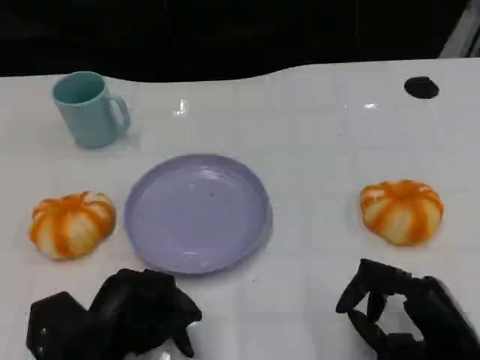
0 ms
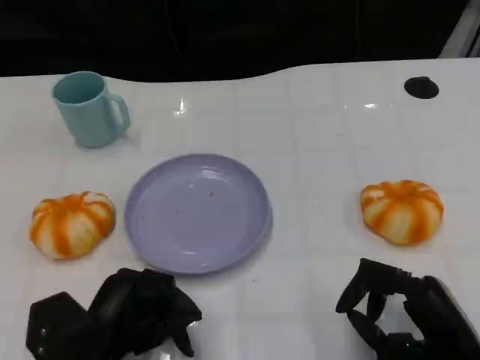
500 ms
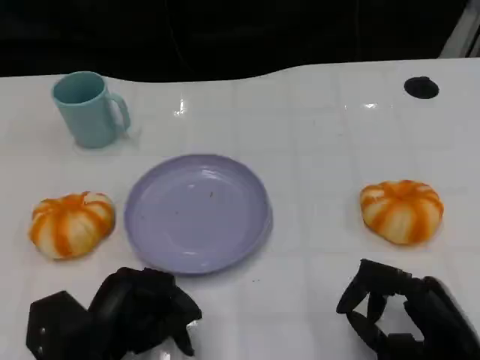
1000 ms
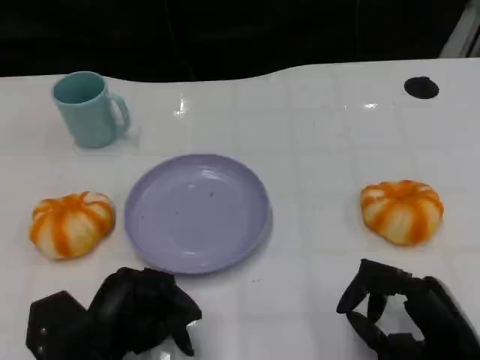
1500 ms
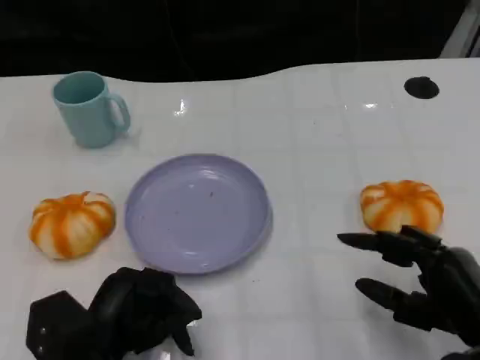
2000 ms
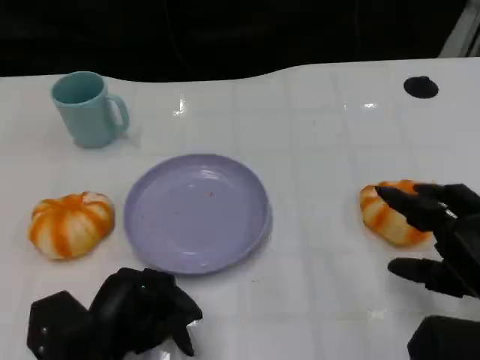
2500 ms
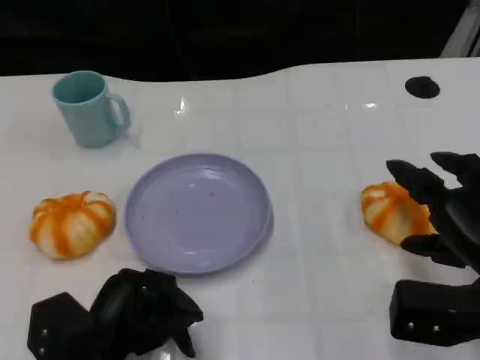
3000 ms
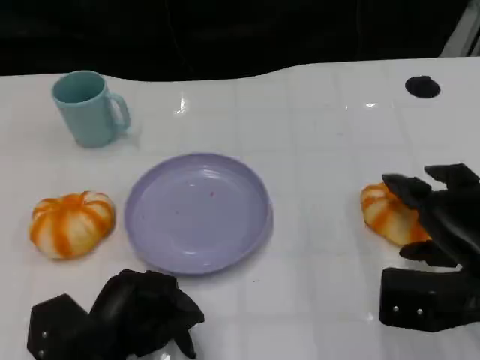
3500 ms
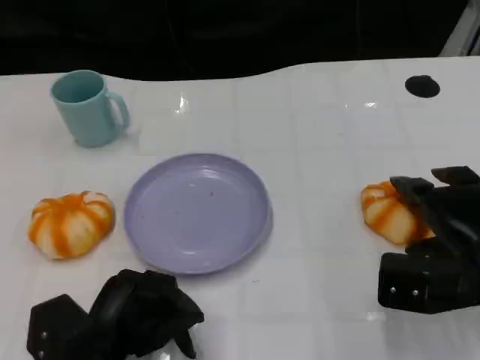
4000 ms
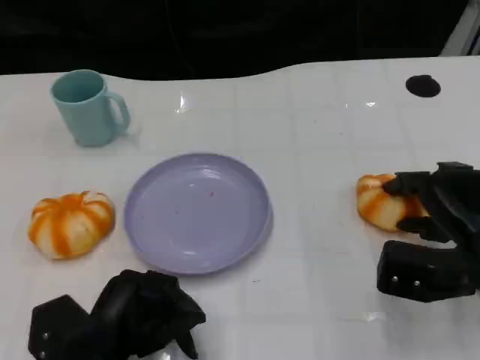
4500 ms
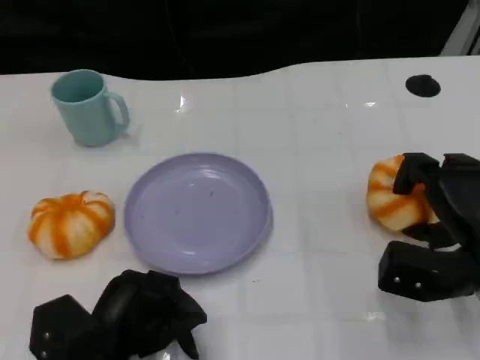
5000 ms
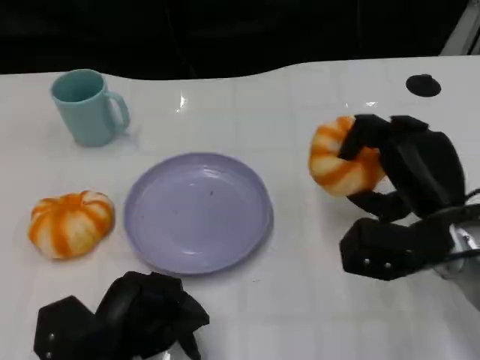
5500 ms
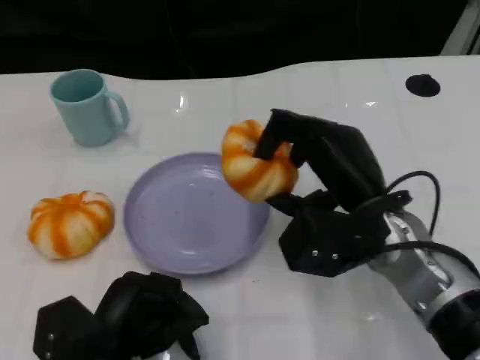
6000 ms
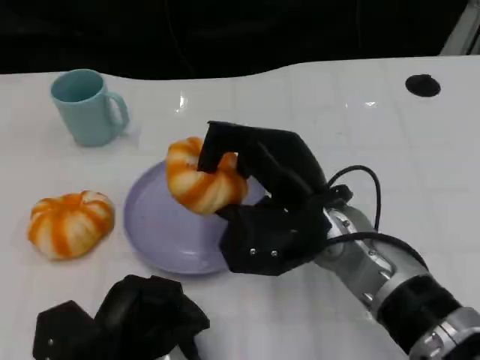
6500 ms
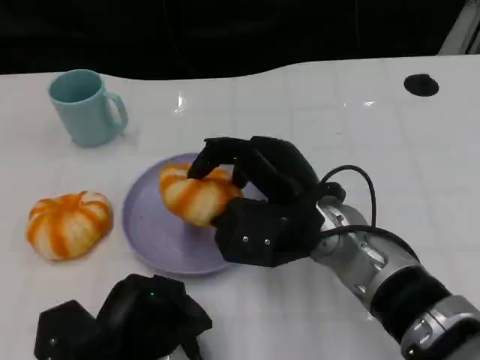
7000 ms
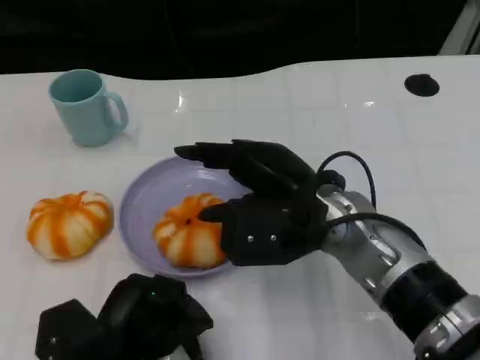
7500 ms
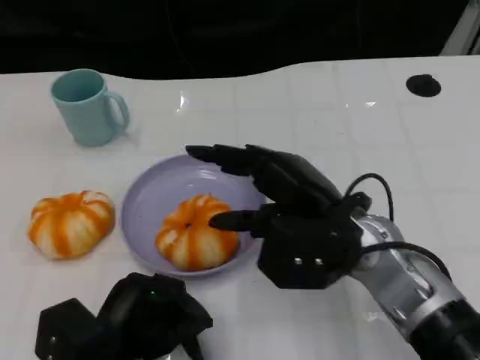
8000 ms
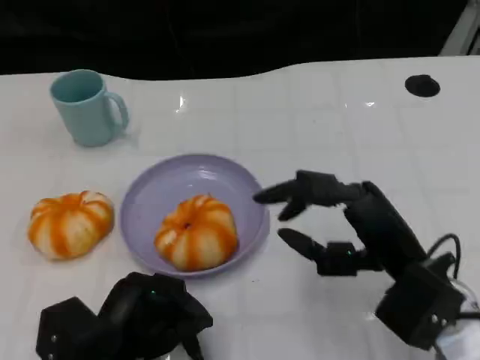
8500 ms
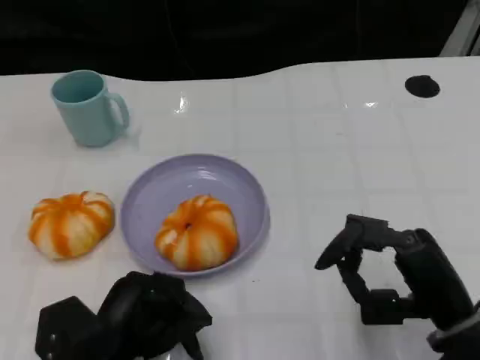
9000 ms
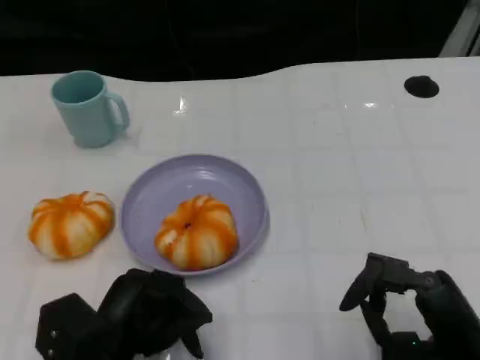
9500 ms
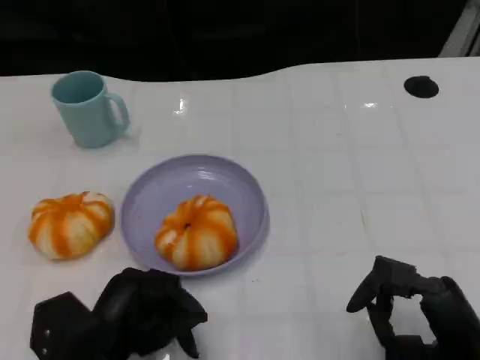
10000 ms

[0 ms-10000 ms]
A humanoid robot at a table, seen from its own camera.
Task of the whole recording: Grasp the bread from the table and place it into the plate.
0 ms to 2000 ms: The hands stay close to where they were, moving slightly.
2000 ms to 4000 ms: The right hand heads forward, covering roughly 10 cm.
4000 ms to 6000 ms: The right hand goes roughly 15 cm to the left and upward.
8000 ms to 10000 ms: The right hand moves to the right, backward and downward, about 20 cm.
